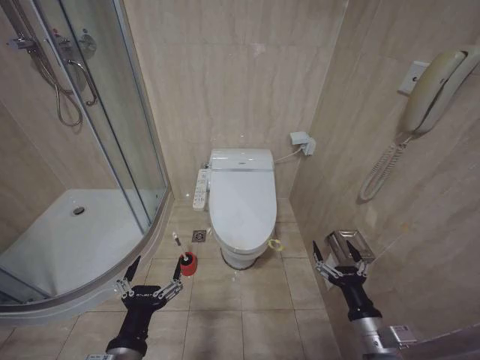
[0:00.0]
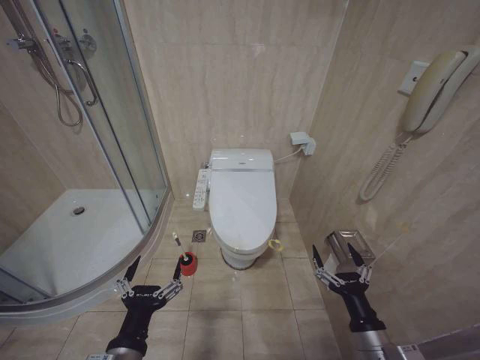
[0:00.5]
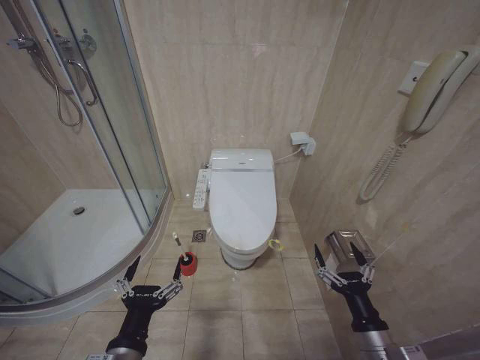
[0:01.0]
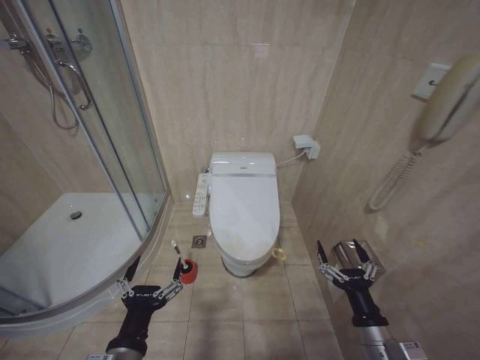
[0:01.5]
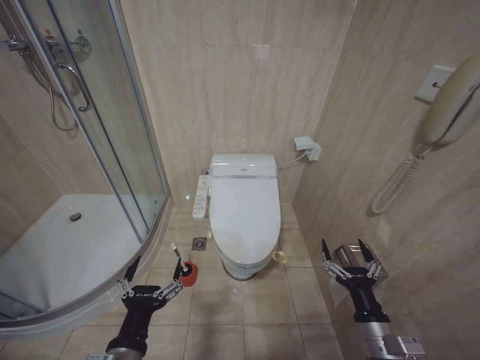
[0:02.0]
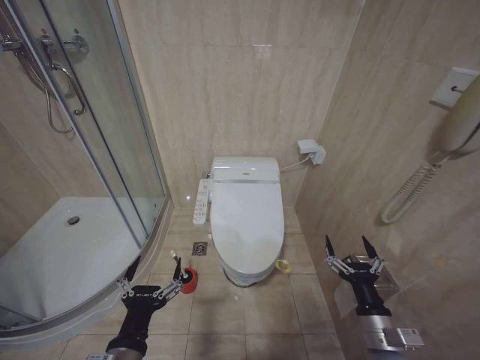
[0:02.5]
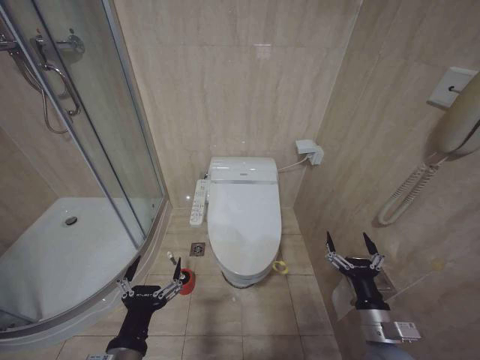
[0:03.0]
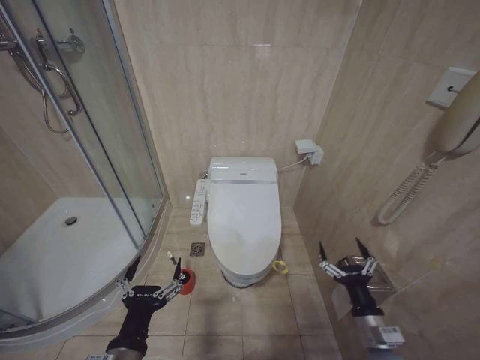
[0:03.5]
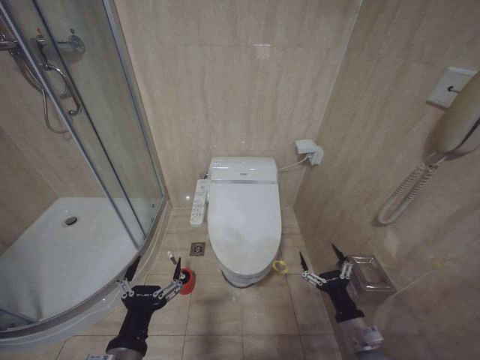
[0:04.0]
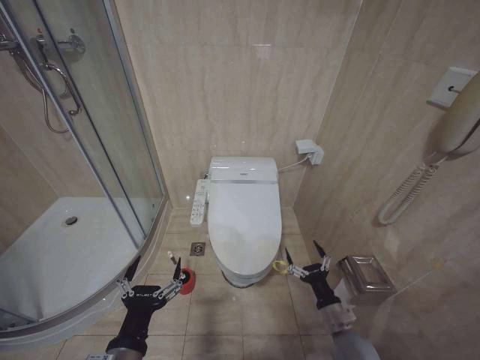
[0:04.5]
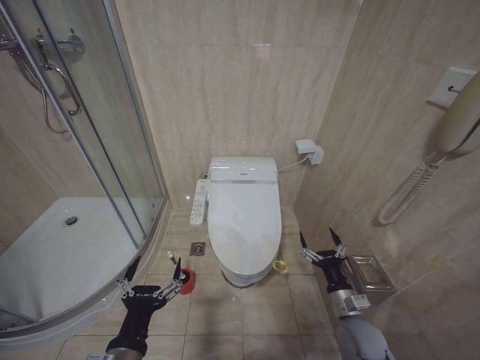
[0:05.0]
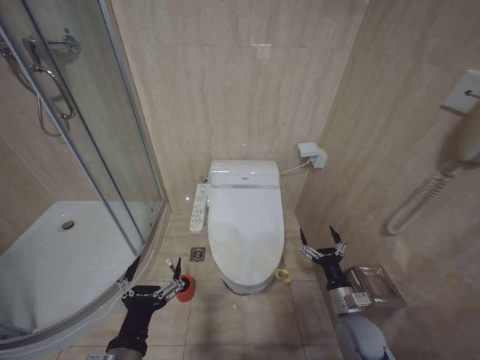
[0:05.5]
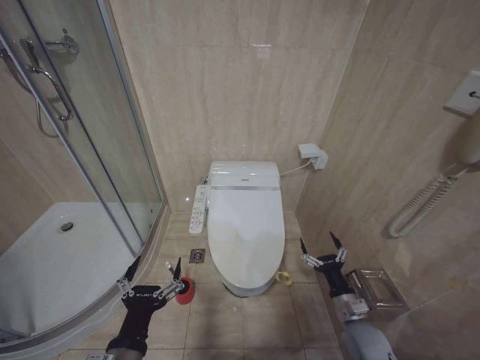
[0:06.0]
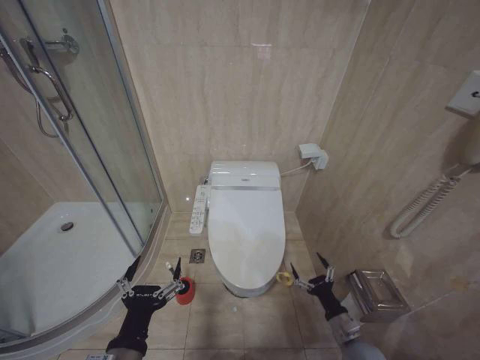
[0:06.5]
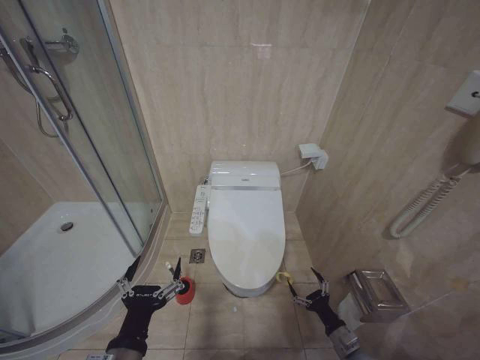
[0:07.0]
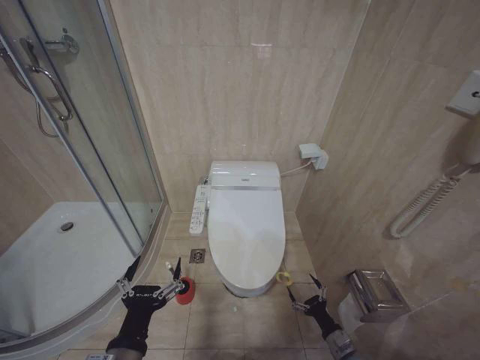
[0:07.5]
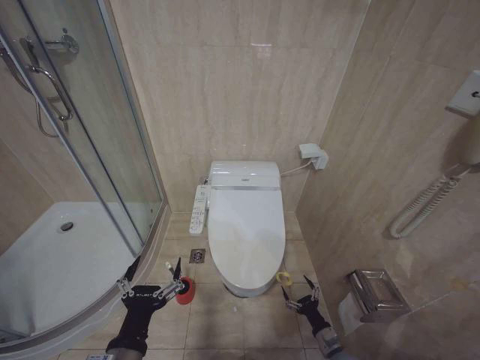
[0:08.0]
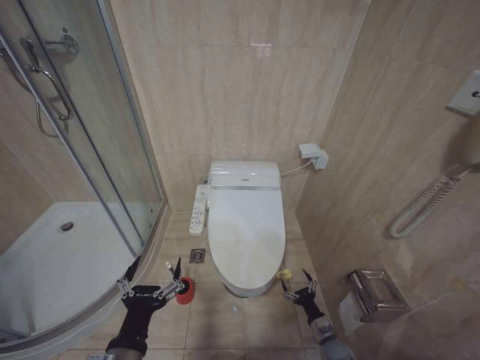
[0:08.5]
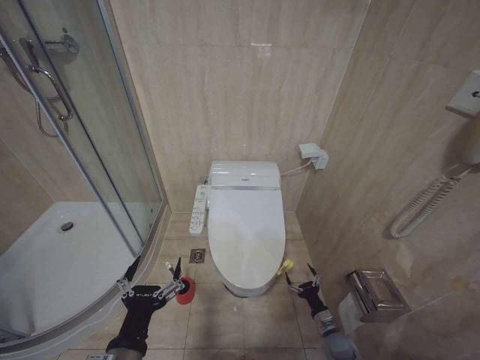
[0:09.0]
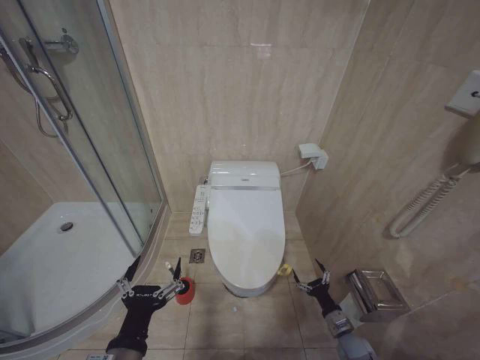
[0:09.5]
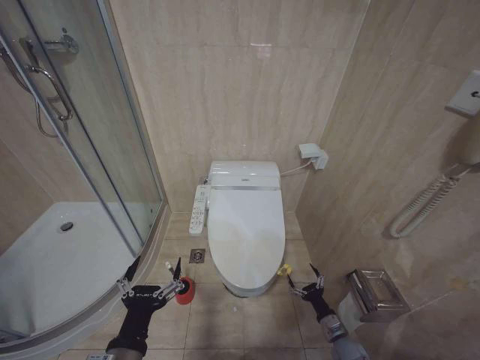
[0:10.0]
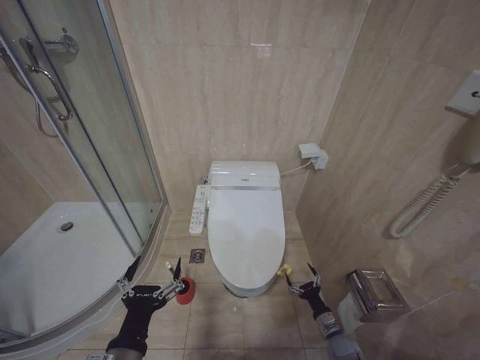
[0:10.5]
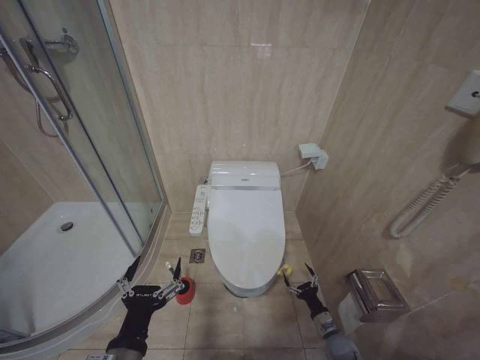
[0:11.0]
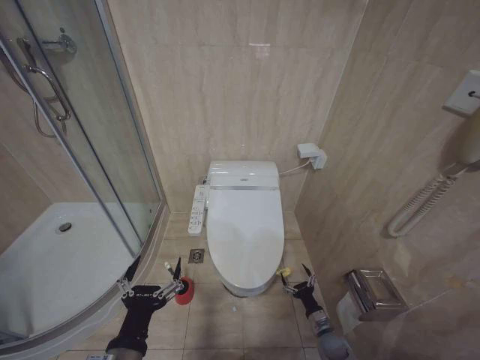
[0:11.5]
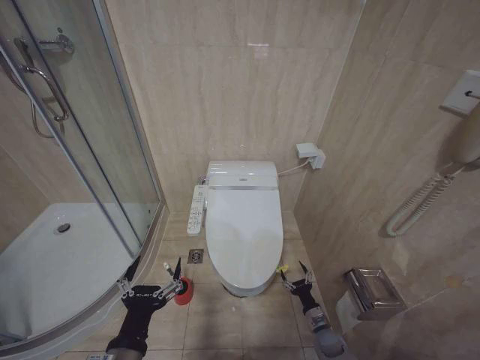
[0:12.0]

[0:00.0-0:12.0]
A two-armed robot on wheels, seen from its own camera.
Task of the whole recording: Open the toilet lid, clean the toilet bowl with a toilet brush, close the toilet lid, and flush.
0:02.0 to 0:04.0: There are only small adjustments of the grippers.
0:04.0 to 0:06.0: The right gripper goes roughly 5 cm forward.
0:06.0 to 0:08.0: The right gripper goes about 20 cm downward.
0:10.0 to 0:12.0: The right gripper ends up some 5 cm from where it was.

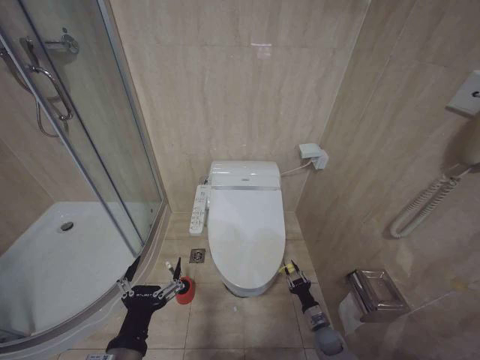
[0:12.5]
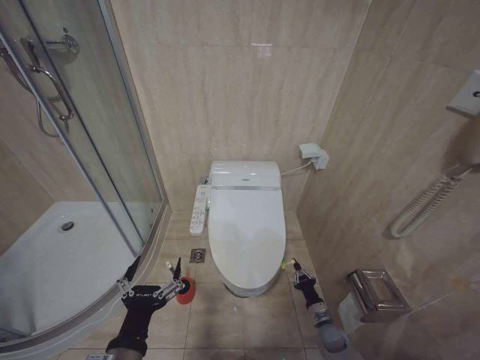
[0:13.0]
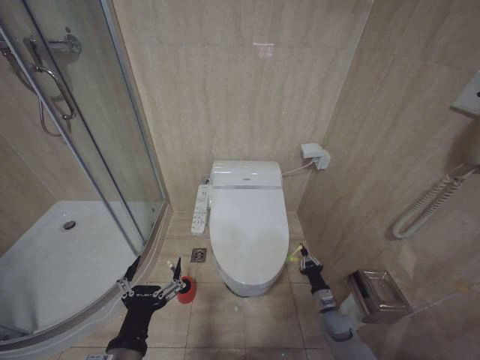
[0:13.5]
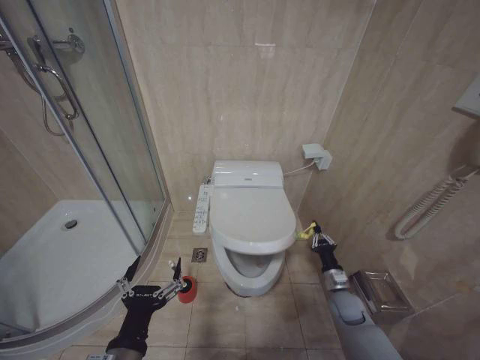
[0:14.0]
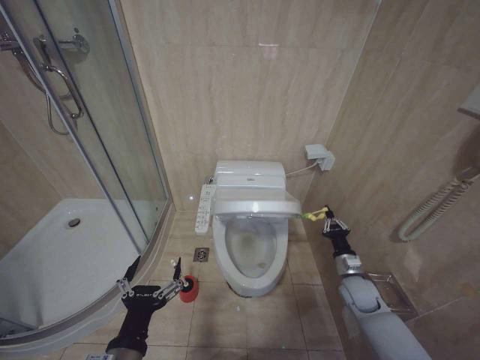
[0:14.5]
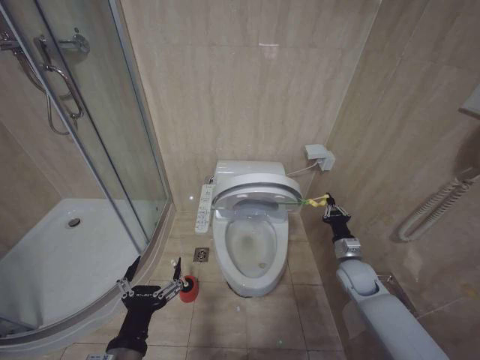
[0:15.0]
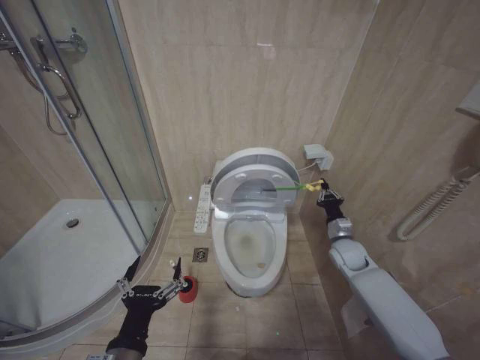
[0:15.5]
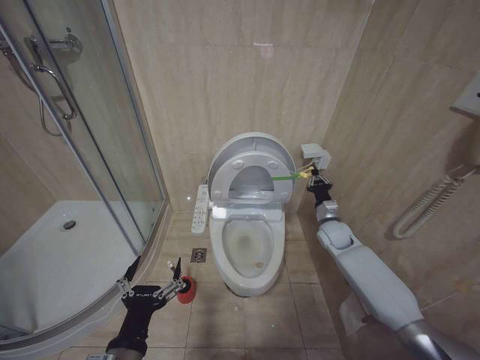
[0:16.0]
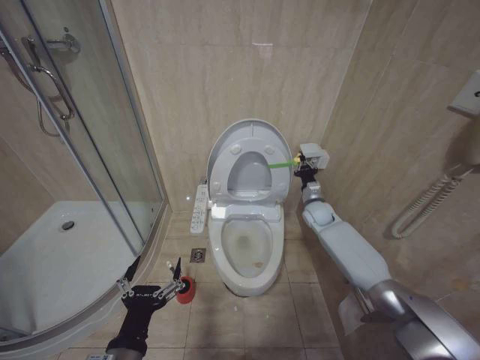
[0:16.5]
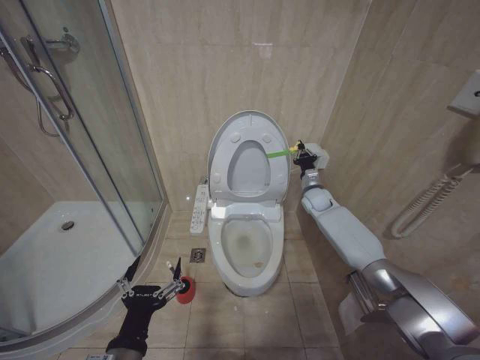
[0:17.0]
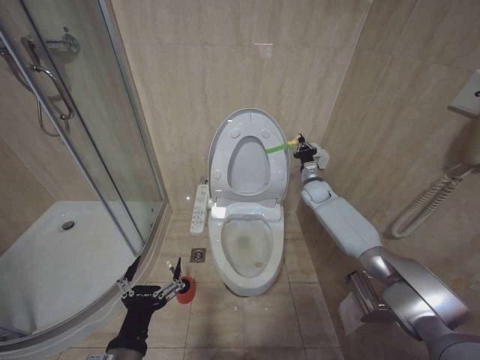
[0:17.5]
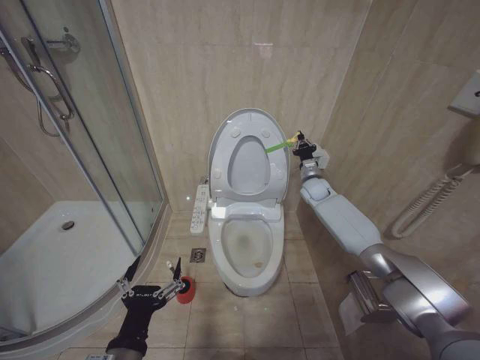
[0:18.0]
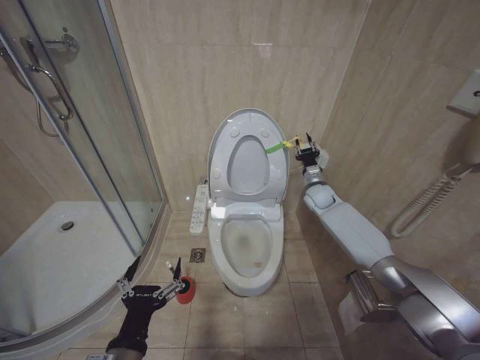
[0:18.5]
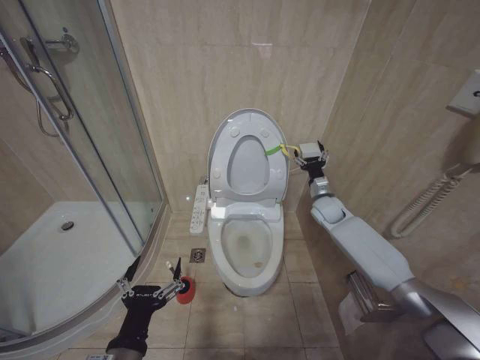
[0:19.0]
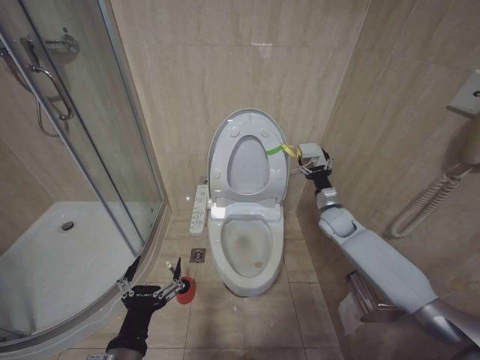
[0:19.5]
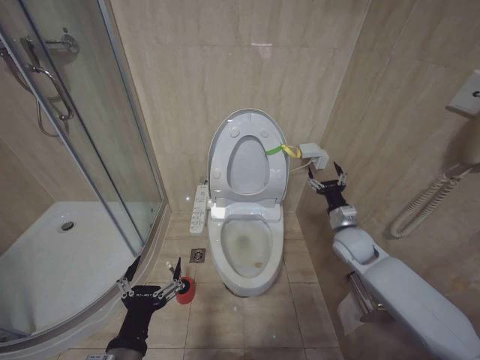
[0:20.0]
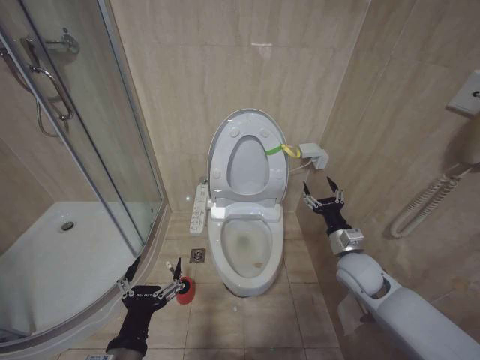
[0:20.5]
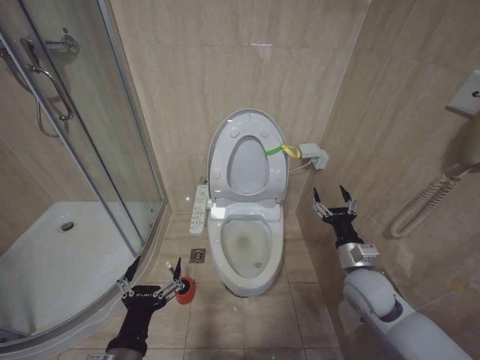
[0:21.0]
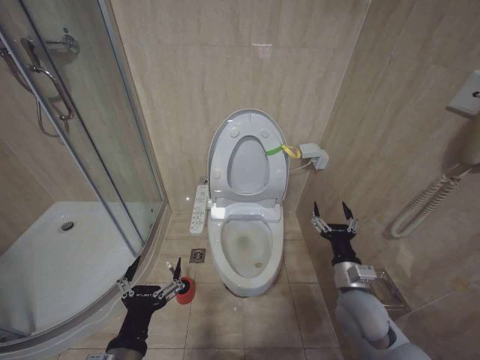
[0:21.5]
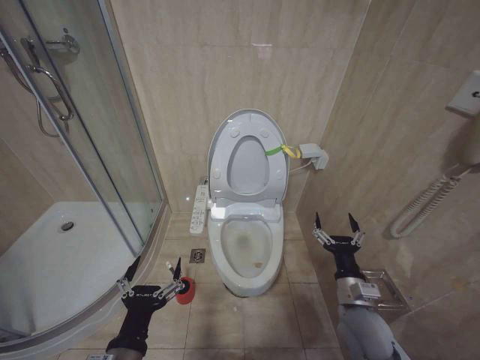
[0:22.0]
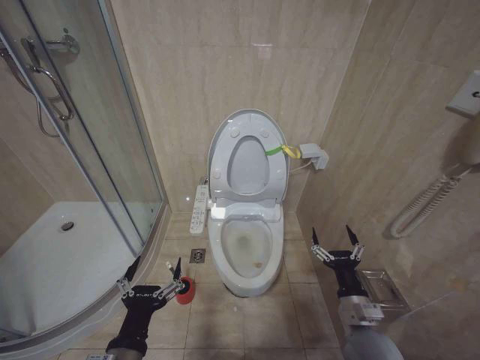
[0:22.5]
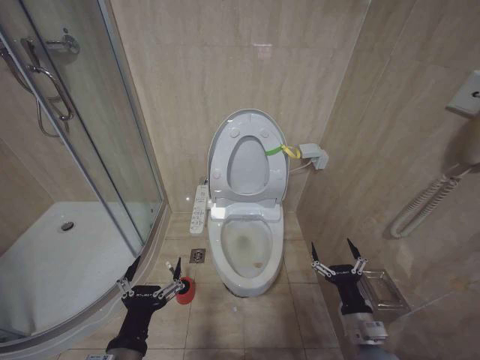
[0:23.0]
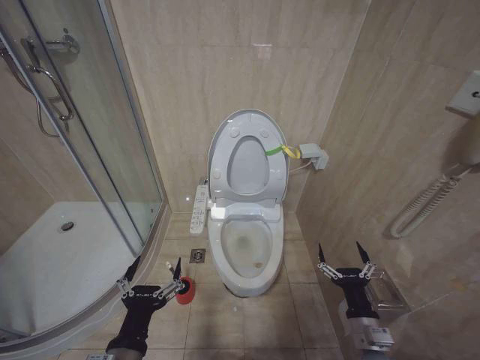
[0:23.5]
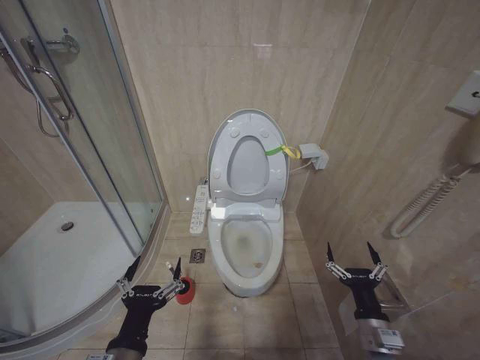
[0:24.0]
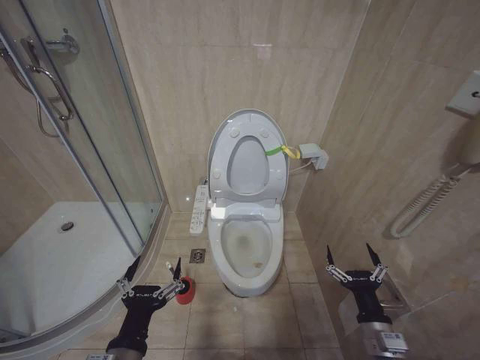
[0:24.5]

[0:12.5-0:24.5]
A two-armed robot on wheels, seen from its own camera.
Task of the whole recording: Open the toilet lid, clean the toilet bowl with a toilet brush, close the toilet lid, and flush.
0:12.5 to 0:14.5: The right gripper moves upward, roughly 20 cm, and closes its fingers.
0:14.5 to 0:16.5: The right gripper heads forward and upward, covering roughly 25 cm.
0:16.5 to 0:18.5: The right gripper shifts about 5 cm upward.
0:18.5 to 0:20.5: The right gripper goes roughly 25 cm backward, and opens.
0:20.5 to 0:22.5: The right gripper is displaced backward and downward by some 15 cm.
0:22.5 to 0:24.5: The right gripper travels backward by approximately 5 cm.

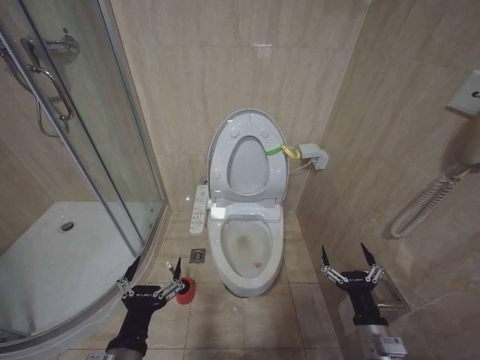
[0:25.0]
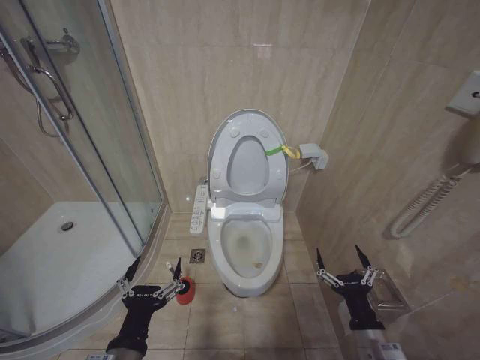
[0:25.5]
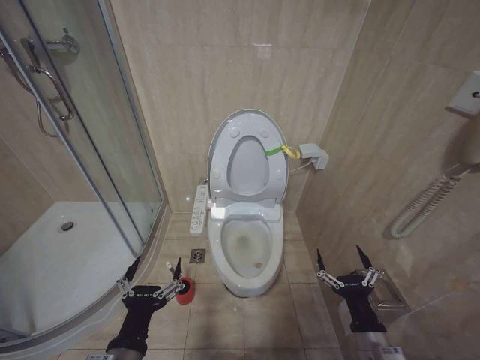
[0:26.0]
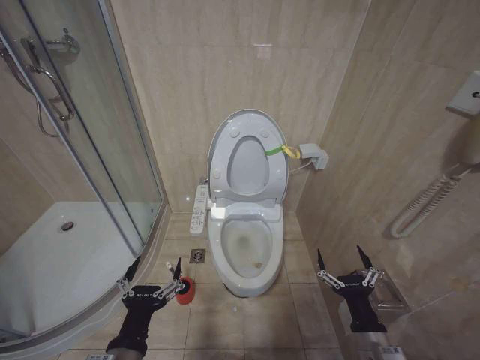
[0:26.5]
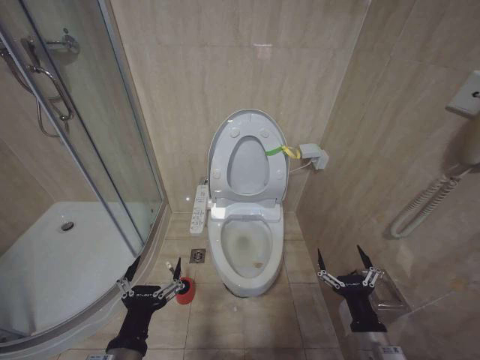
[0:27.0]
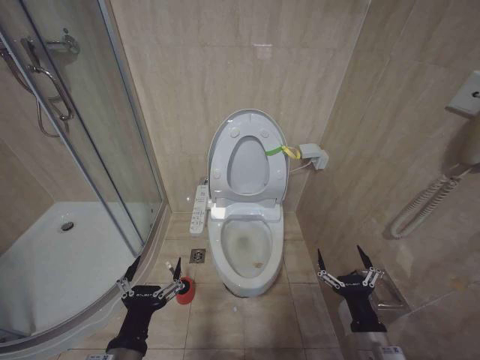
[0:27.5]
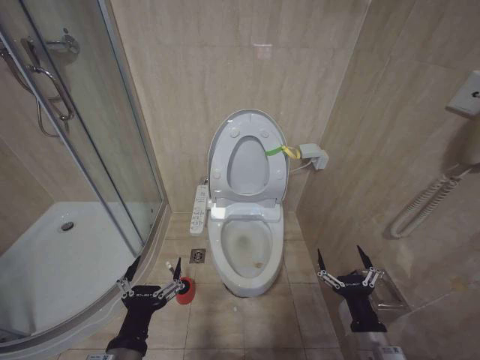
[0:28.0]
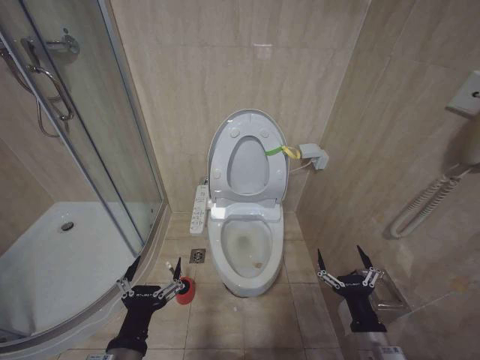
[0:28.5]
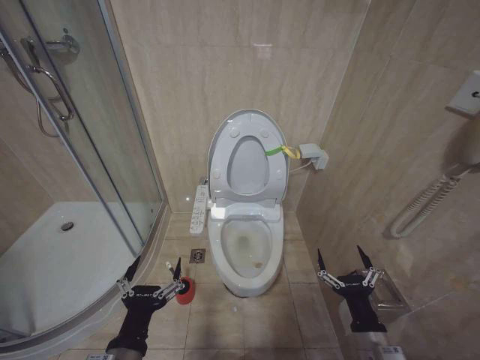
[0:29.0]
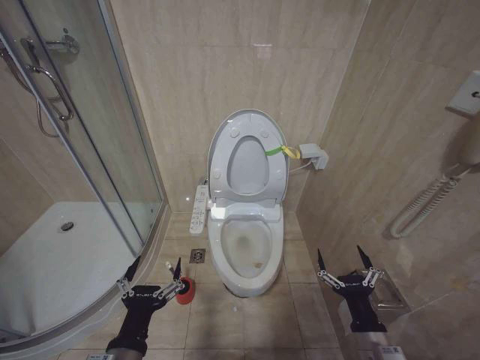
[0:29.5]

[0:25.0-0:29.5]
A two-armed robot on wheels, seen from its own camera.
Task of the whole recording: Open the toilet lid, clean the toilet bowl with a toilet brush, close the toilet lid, and flush.
0:25.0 to 0:27.0: There are only small adjustments of the grippers.
0:27.0 to 0:29.5: The two grippers keep their place.
